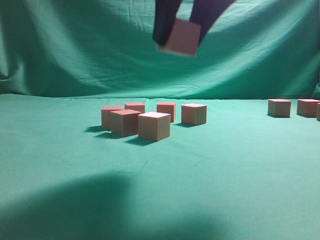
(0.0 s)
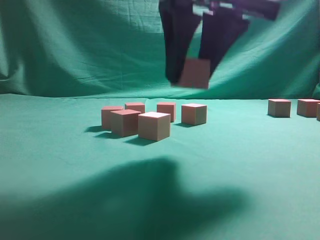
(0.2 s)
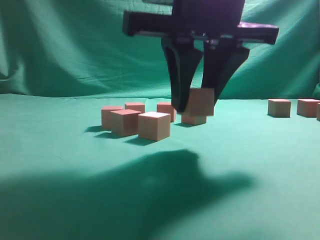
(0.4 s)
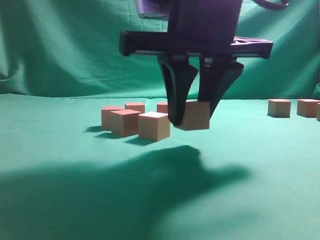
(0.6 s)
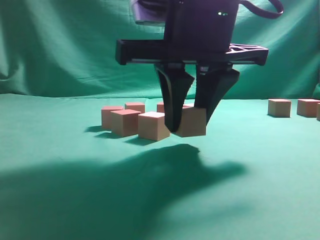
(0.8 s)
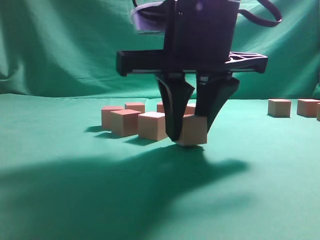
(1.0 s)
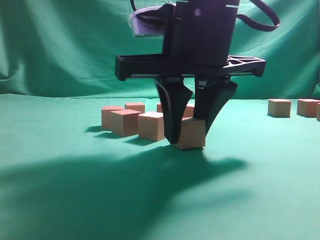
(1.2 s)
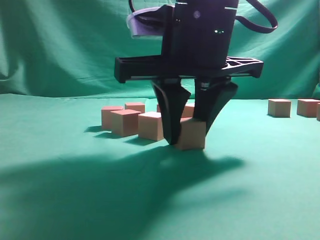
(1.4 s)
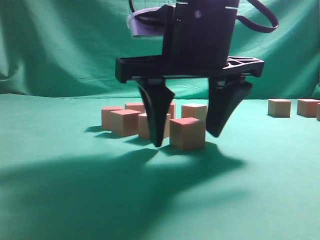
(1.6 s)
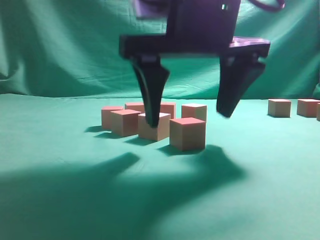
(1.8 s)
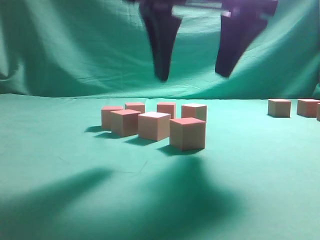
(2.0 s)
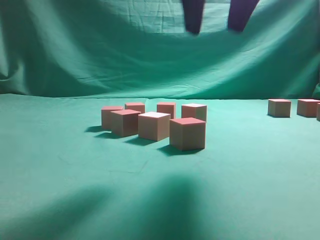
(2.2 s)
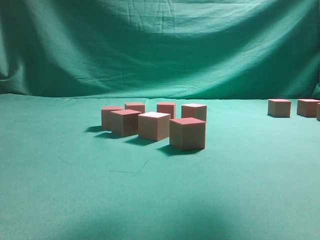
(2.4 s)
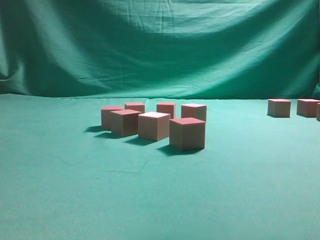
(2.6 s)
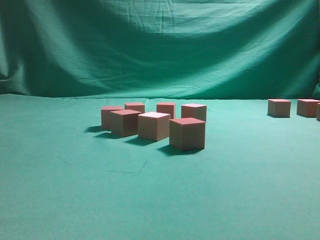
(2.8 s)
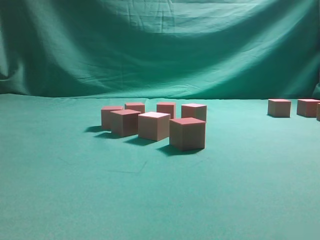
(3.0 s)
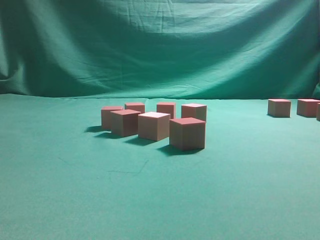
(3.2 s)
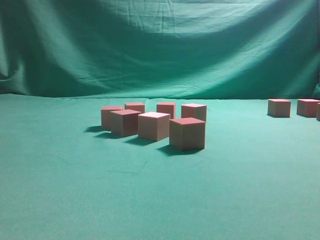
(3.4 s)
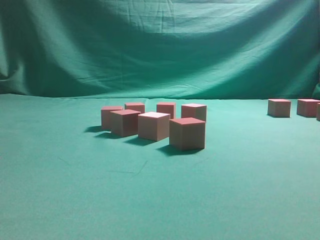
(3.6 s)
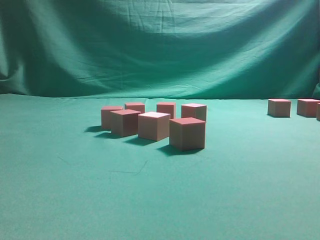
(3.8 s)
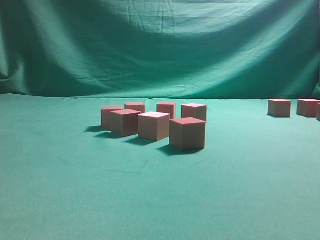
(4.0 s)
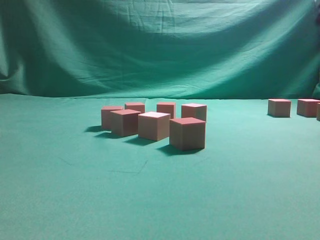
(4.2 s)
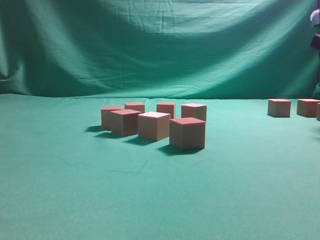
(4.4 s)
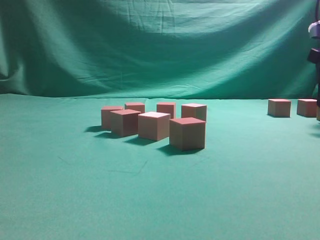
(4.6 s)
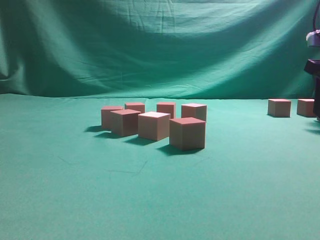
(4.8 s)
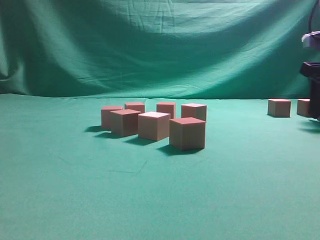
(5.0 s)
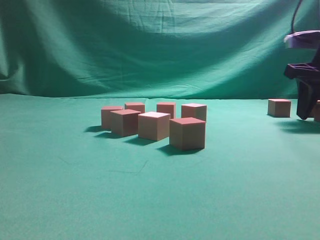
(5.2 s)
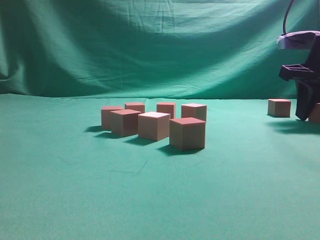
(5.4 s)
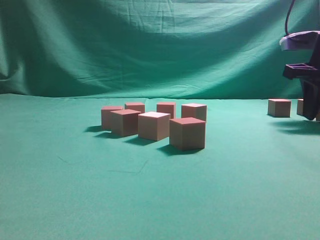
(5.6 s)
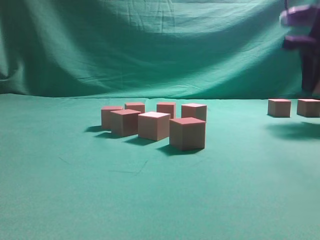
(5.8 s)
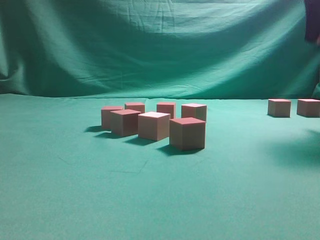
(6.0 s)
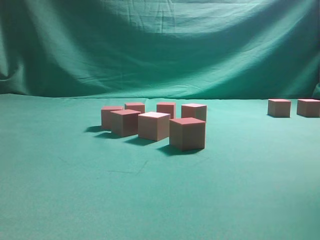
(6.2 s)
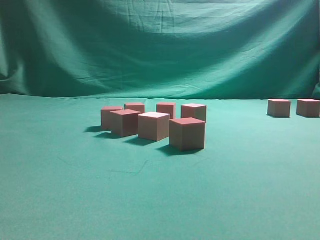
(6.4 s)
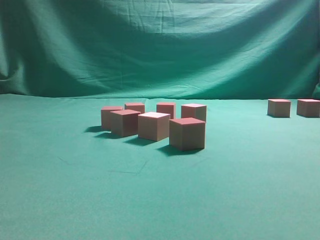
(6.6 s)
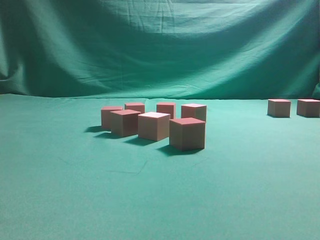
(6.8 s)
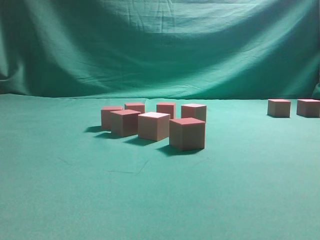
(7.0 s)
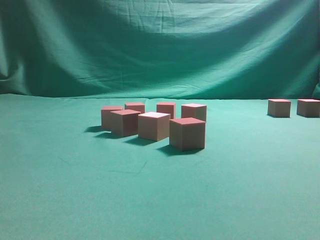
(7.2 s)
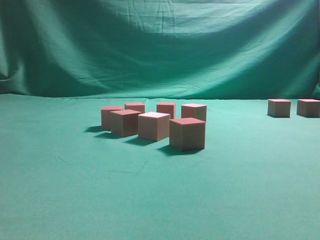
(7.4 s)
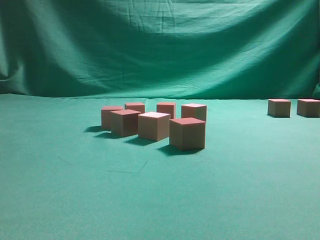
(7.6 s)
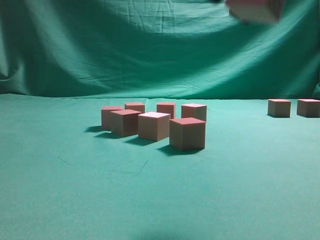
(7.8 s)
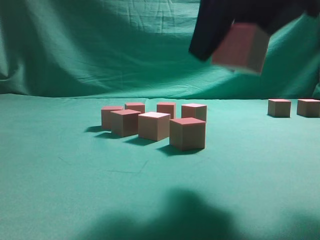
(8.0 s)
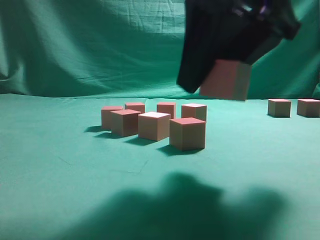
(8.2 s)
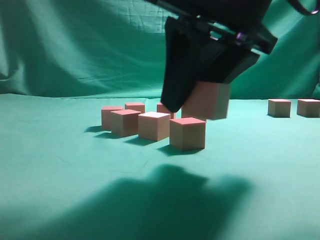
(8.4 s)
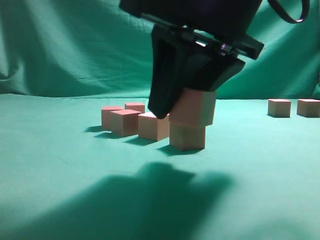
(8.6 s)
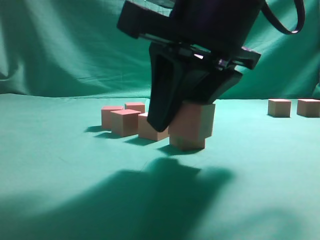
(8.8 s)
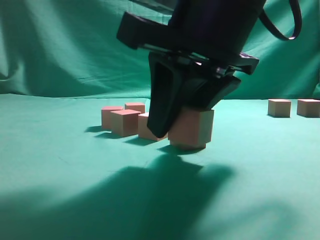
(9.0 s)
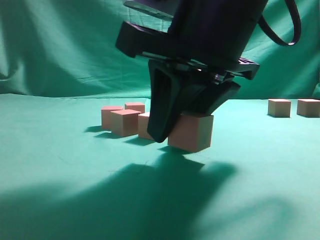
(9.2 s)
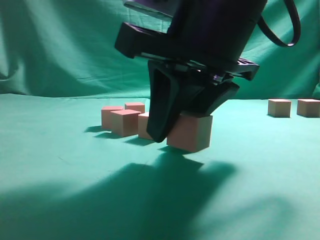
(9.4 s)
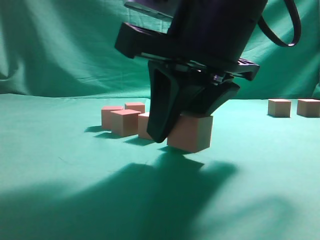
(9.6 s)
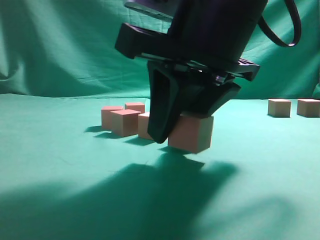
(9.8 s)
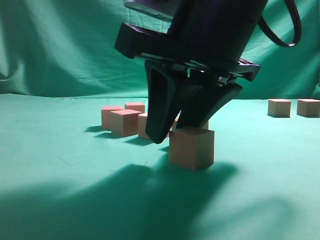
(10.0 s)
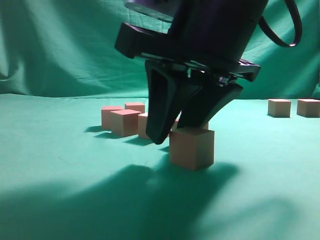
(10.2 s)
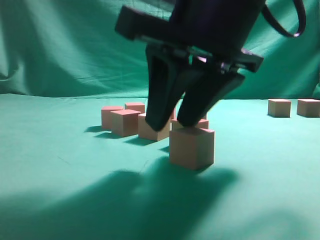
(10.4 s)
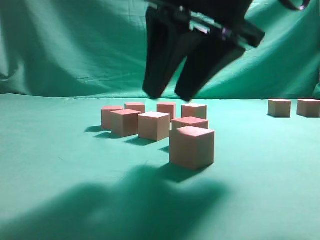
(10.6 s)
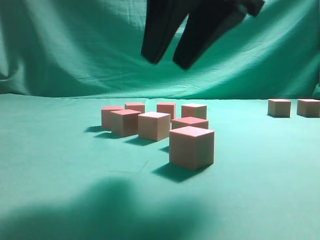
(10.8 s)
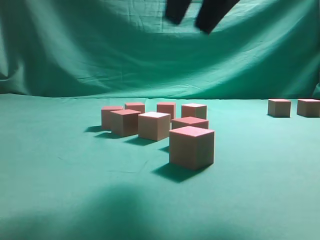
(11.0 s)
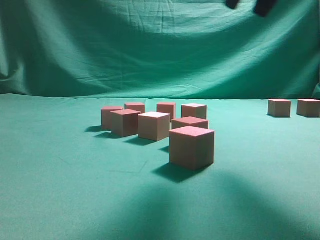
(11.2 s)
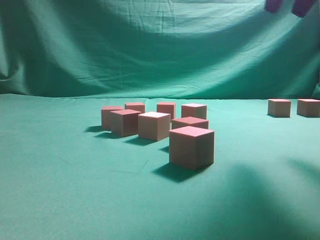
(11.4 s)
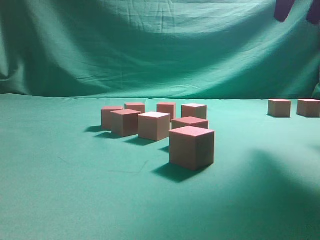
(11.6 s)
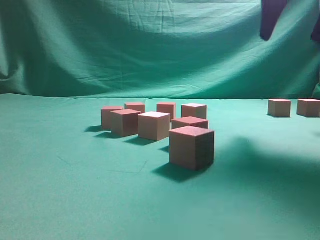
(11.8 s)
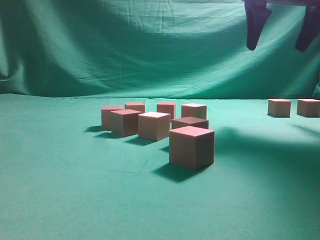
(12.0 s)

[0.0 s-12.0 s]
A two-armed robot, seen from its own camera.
Task of the whole recording: pick up the multiple cubes in two columns one by one and place them in another position on the table.
Step, 0.0 to 2.0 s: Place the block at the correct position to assemble the letter S.
Step, 2.2 to 5.6 s: Pick up the block on the table.
Step, 5.8 to 10.8 s: Place the block at the correct position to assemble the letter S.
0.0 to 1.6 s: The right gripper goes some 10 cm downward, and opens up.
1.6 to 3.0 s: The right gripper is displaced upward and to the right by roughly 25 cm.
4.4 to 6.0 s: The right gripper heads upward, covering approximately 10 cm.
6.0 to 7.6 s: The right gripper goes some 25 cm backward and to the left.
7.6 to 9.0 s: The right gripper goes about 15 cm downward, to the left and forward.
9.0 to 10.4 s: Both grippers stay put.
10.4 to 12.0 s: The right gripper goes approximately 25 cm forward, to the right and upward, and opens up.

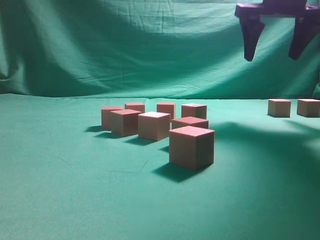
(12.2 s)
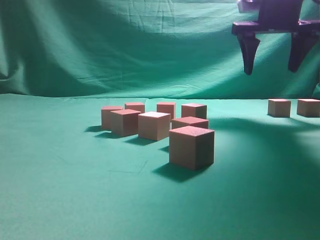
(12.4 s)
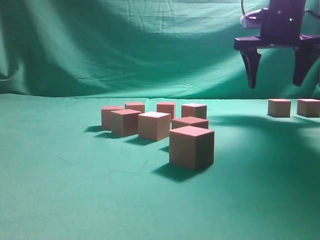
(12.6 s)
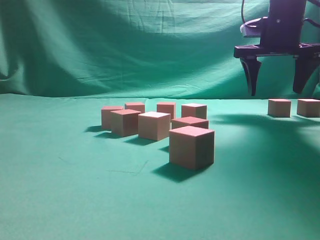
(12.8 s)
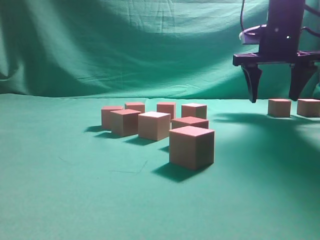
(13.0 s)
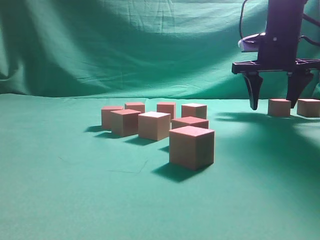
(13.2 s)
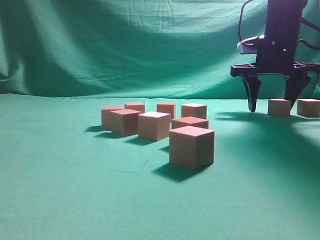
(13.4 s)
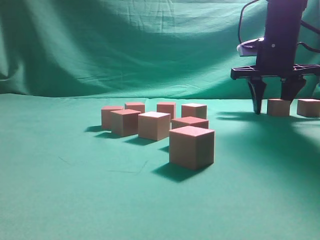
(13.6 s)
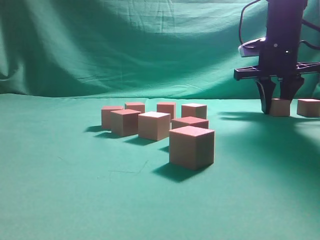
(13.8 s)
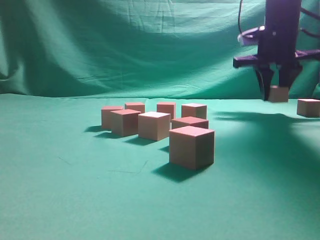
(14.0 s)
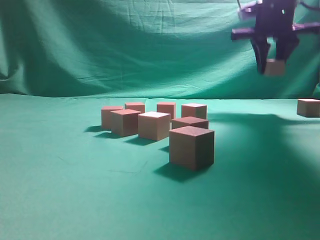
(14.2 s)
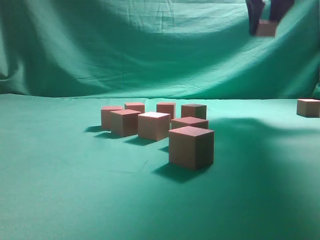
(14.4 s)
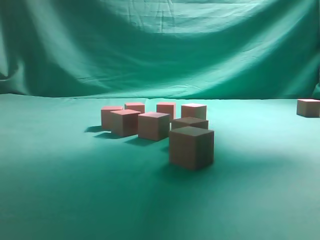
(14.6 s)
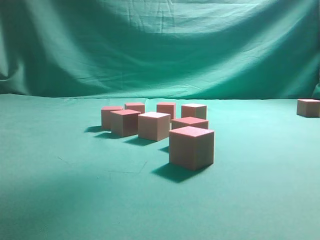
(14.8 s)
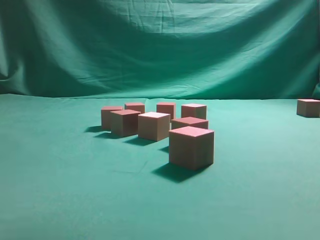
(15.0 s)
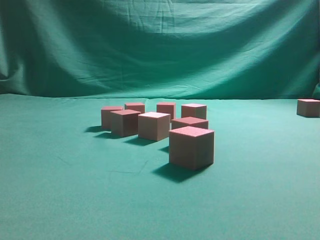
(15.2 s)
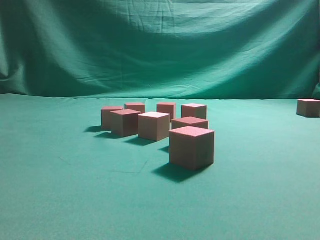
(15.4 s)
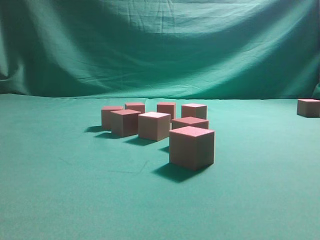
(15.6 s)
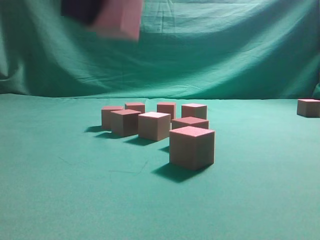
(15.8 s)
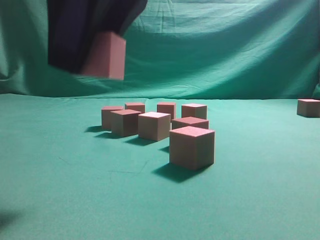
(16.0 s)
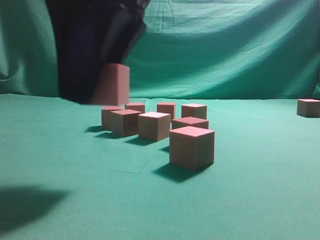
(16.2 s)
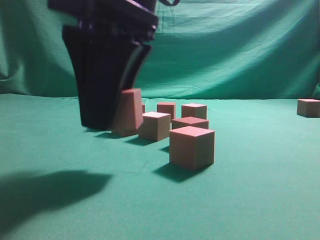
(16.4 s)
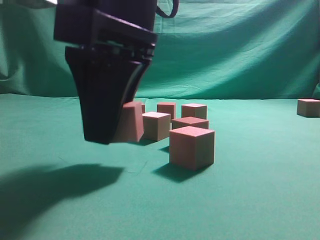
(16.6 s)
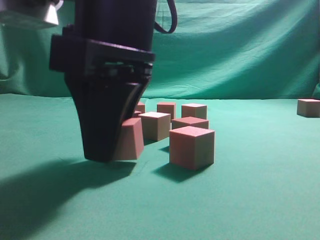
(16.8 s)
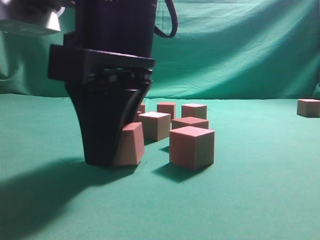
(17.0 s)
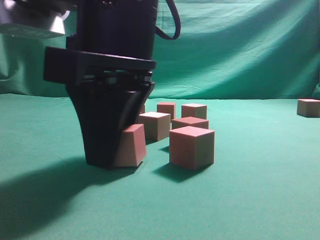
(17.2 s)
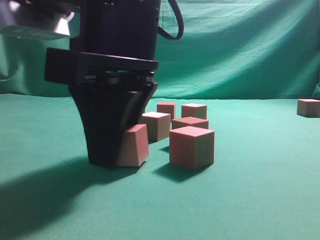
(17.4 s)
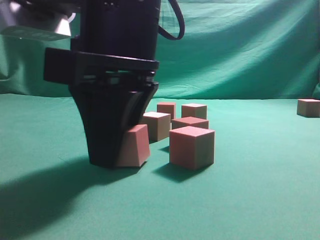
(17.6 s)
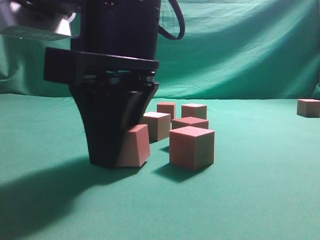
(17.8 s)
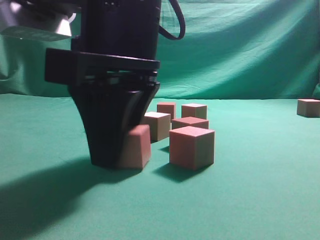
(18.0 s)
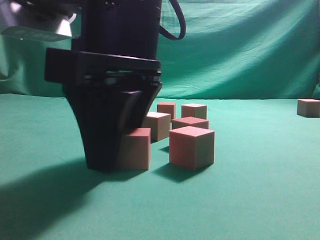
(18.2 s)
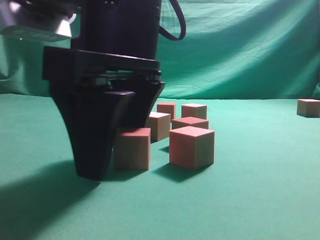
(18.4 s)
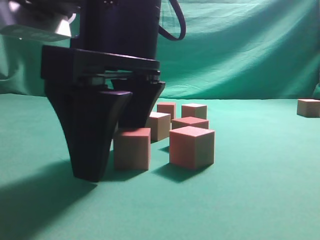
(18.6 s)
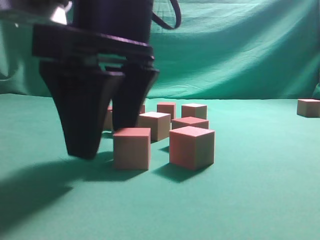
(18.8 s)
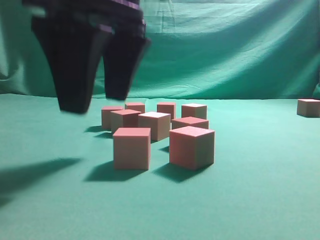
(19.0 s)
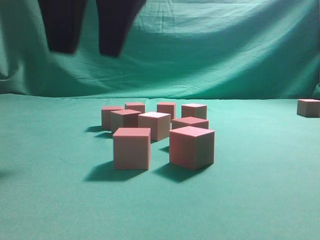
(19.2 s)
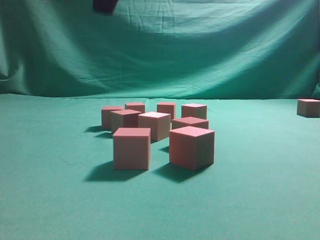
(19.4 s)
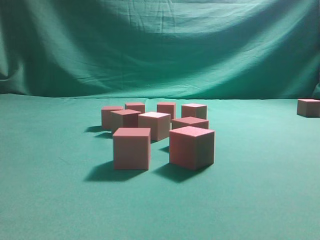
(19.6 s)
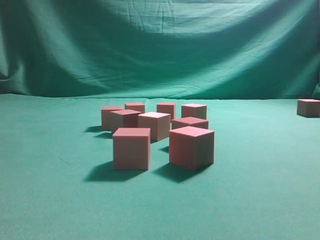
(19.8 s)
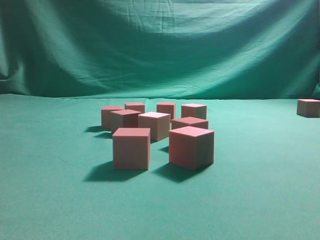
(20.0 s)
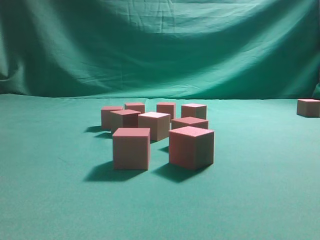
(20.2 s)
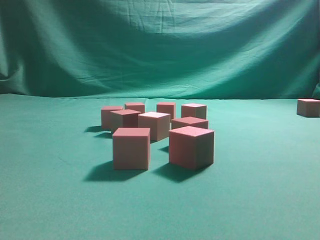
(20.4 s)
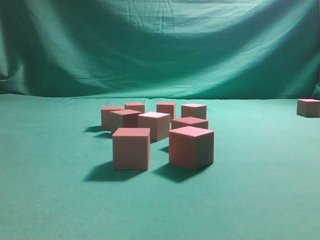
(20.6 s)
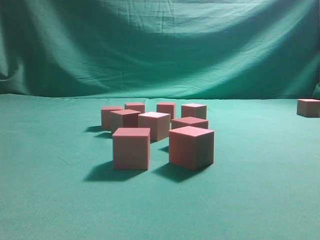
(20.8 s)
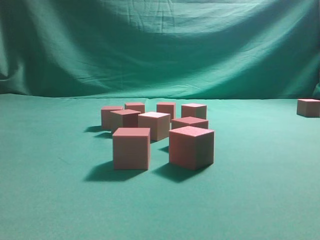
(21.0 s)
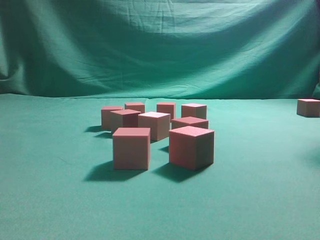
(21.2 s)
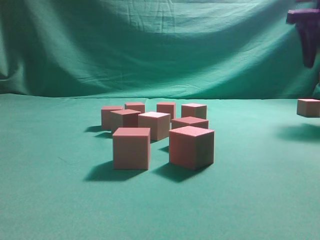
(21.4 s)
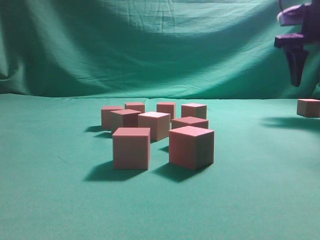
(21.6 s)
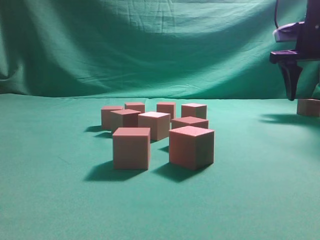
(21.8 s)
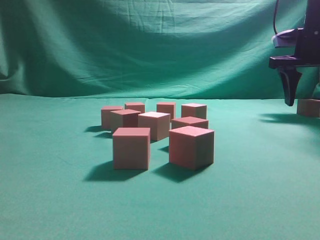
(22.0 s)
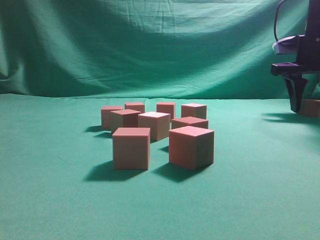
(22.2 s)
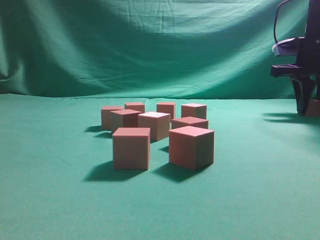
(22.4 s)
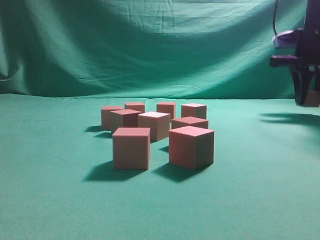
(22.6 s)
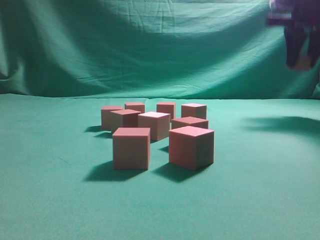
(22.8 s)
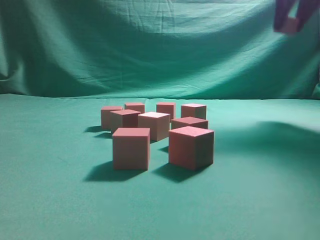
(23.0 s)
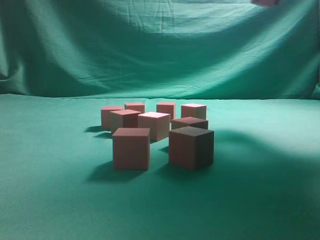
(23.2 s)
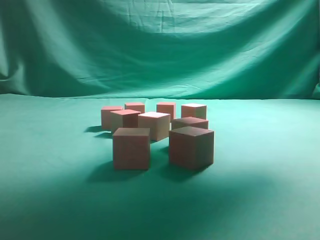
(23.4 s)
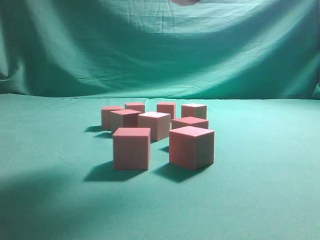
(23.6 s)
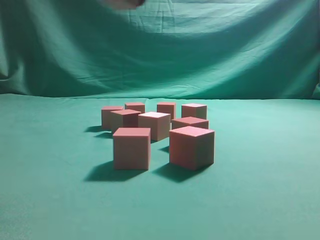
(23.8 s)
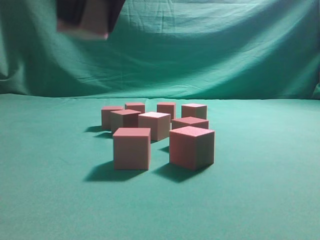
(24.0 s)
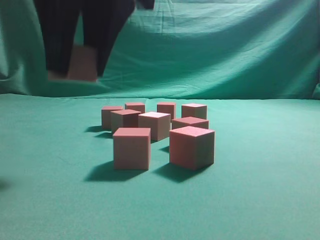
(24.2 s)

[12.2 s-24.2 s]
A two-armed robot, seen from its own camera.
Task of the whole recording: pick up the multiple cubes in two columns one by one and place them in another position on the table.
Step, 12.2 to 14.4 s: Pick up the block on the table.
Step, 14.6 to 19.0 s: Place the block at the correct position to assemble the letter S.
Step, 19.2 to 22.8 s: Pick up the block on the table.
12.2 to 13.8 s: The right gripper shifts some 10 cm downward and forward, and closes up.
13.8 to 15.2 s: The right gripper travels backward, upward and to the left by roughly 30 cm.
15.2 to 16.6 s: The right gripper heads downward and to the left, covering about 25 cm.
16.6 to 18.2 s: The grippers move only a little.
18.2 to 19.8 s: The right gripper shifts some 25 cm upward.
21.2 to 22.6 s: The right gripper goes roughly 15 cm forward and downward, and closes.
22.6 to 24.2 s: The right gripper goes approximately 40 cm to the left and backward.
